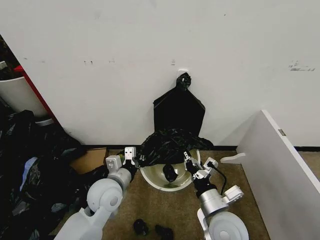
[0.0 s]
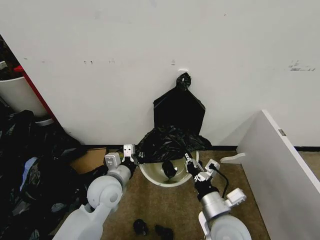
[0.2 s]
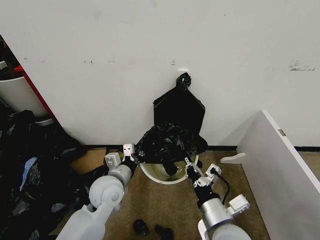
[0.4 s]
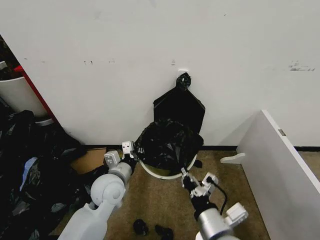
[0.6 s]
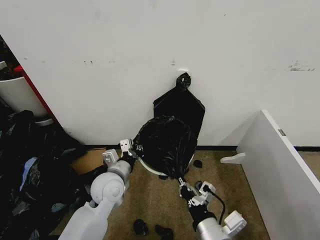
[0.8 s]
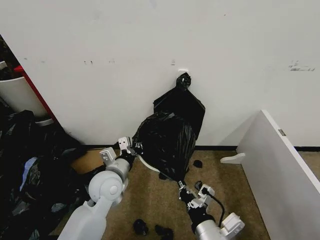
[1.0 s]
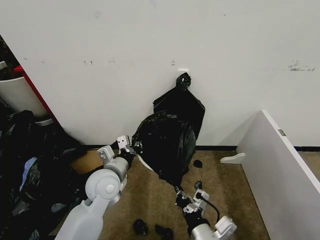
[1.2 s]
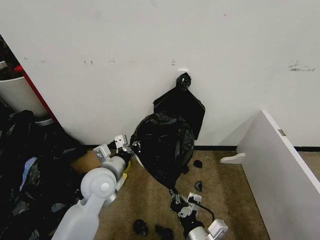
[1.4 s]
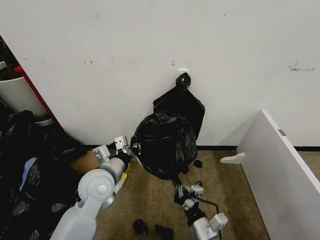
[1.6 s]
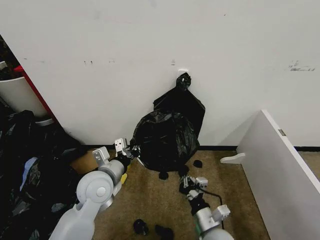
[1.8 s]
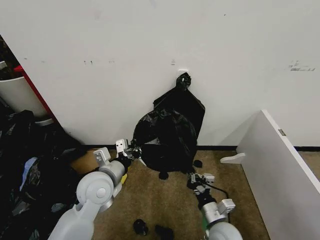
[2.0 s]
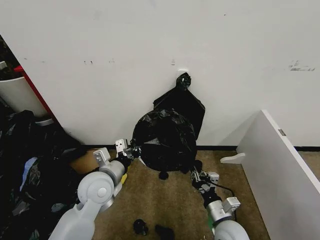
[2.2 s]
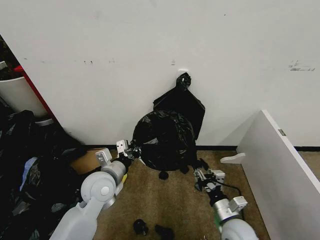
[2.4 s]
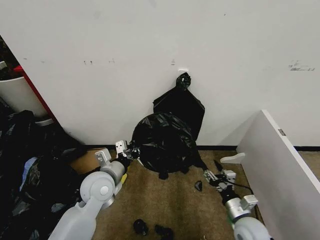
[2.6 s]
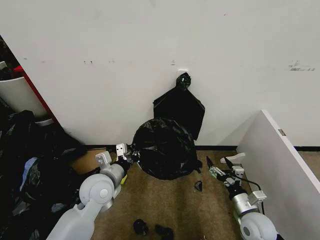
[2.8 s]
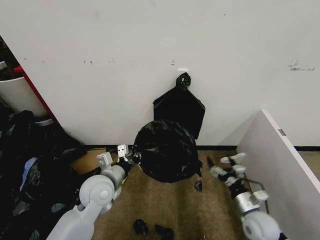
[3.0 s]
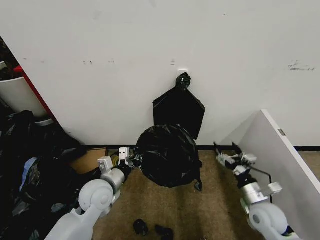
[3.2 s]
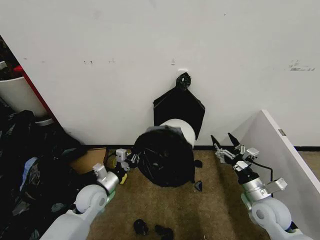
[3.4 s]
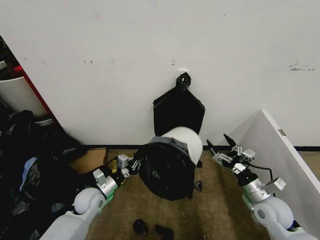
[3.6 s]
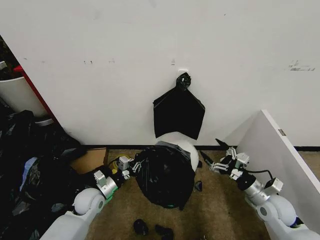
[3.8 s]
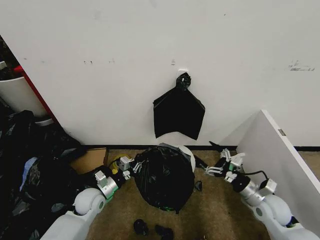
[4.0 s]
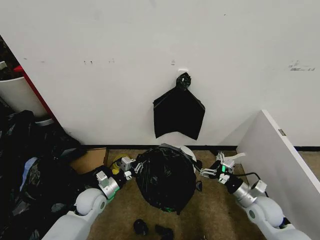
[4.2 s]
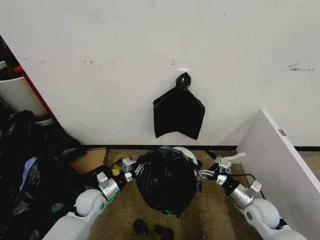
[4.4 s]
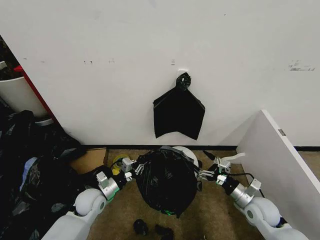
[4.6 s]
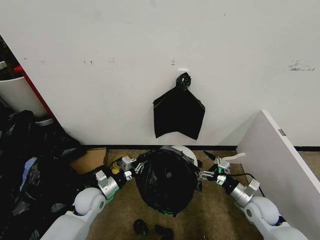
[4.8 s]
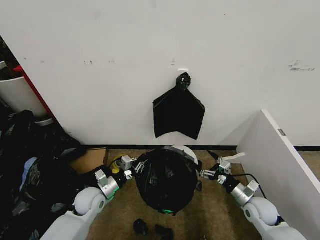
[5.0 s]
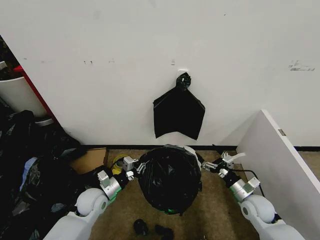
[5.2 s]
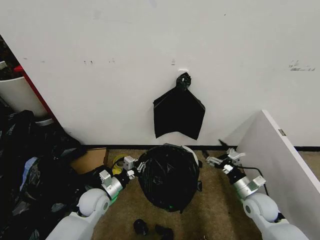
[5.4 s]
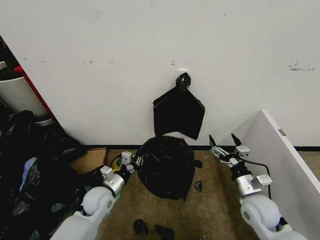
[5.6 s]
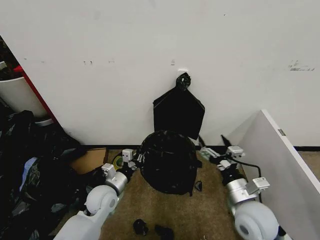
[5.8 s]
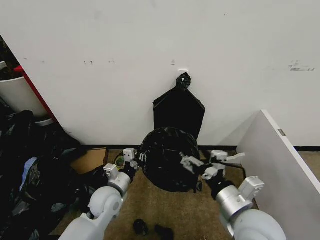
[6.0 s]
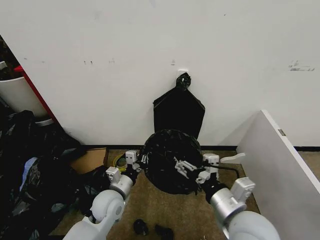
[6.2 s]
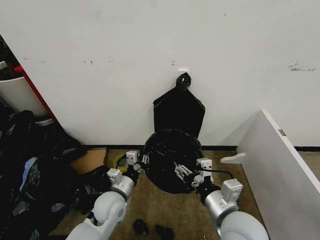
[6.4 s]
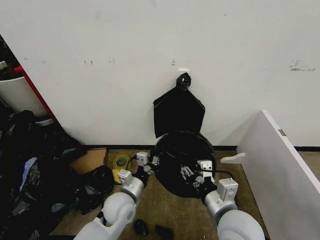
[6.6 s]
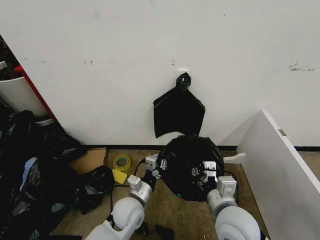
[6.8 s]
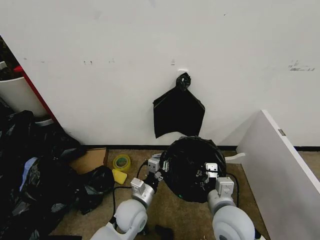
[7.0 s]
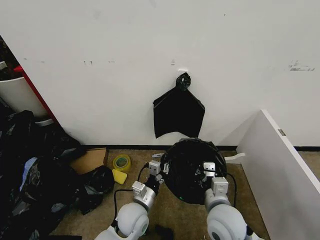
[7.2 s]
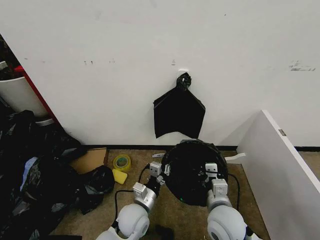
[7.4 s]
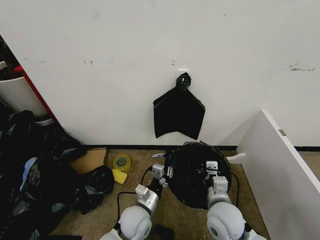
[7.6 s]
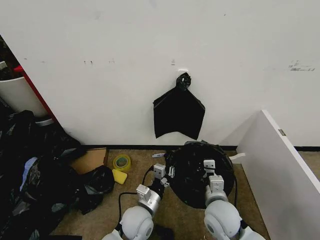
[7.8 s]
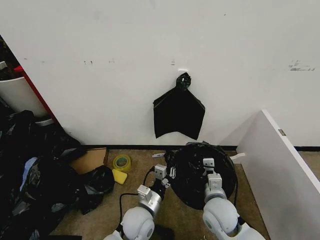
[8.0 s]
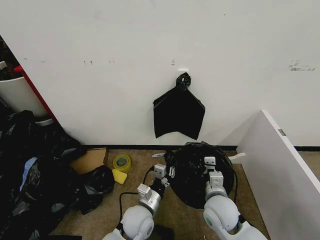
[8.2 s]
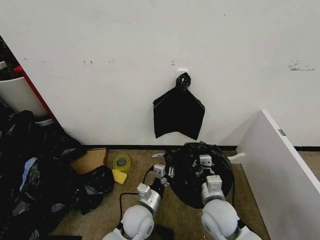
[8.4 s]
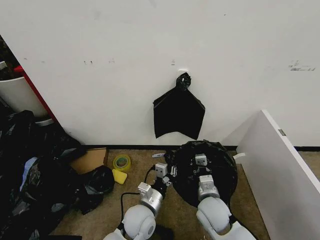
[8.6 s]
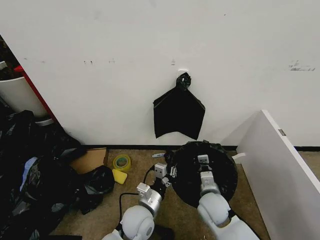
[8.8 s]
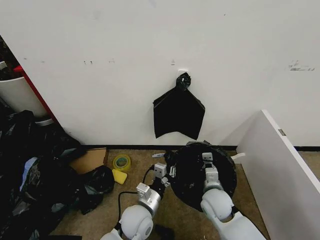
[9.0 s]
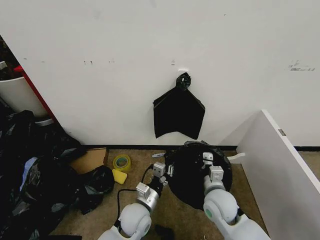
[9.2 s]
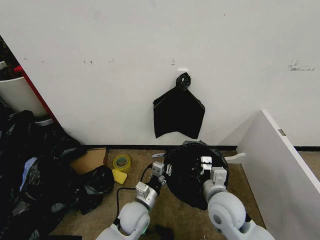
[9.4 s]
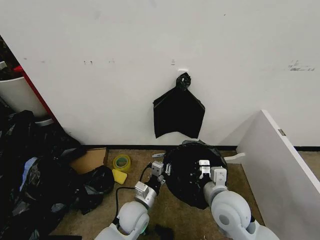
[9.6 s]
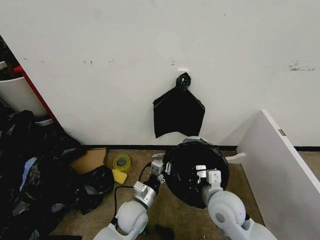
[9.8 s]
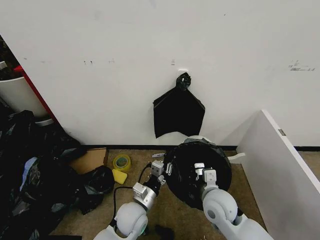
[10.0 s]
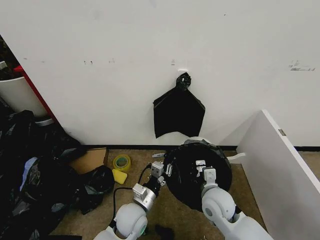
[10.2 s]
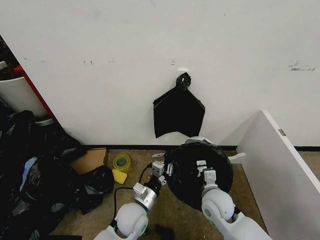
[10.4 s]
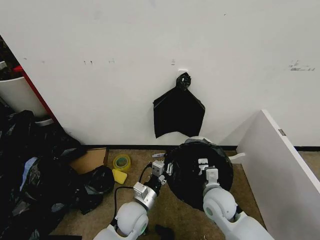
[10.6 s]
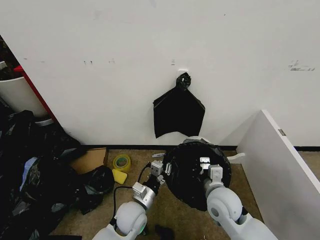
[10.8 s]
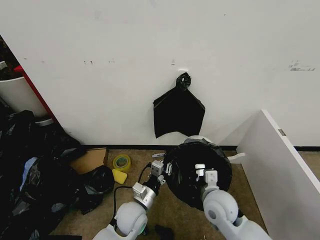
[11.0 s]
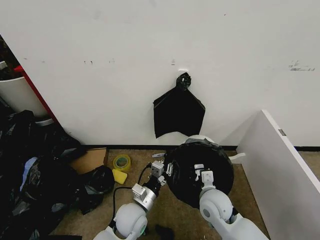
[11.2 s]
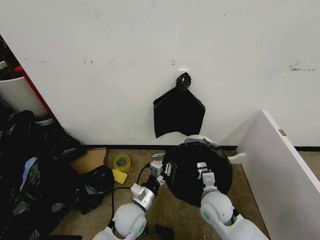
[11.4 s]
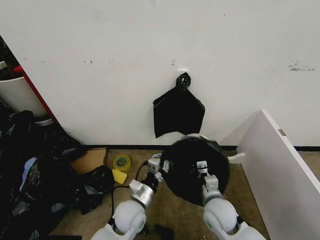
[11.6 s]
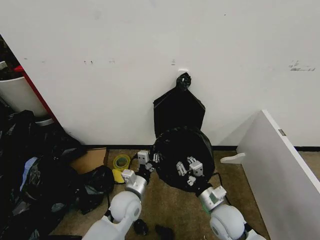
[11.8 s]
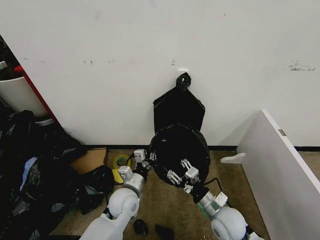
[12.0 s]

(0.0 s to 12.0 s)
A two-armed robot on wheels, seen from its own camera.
Task of the whole recording: Place the garbage bag over the trash bin.
0.0 s - 1.6 s: The right gripper is displaced downward and backward by some 10 cm.
1.6 s - 3.0 s: The right gripper heads to the right and forward, covering some 20 cm, and opens up.
3.0 s - 4.4 s: The left gripper moves downward and to the left, approximately 15 cm.
4.4 s - 6.0 s: The right gripper moves upward, to the left and backward, about 25 cm; the left gripper is displaced to the right and upward by about 10 cm.
6.0 s - 7.6 s: The left gripper moves to the right, roughly 10 cm; the right gripper travels downward by roughly 10 cm, and closes.
7.6 s - 9.0 s: The right gripper travels forward and downward by roughly 10 cm.
9.0 s - 10.4 s: The right gripper reaches some 10 cm upward, then returns.
10.4 s - 12.0 s: The left gripper changes place by some 5 cm. Meanwhile the right gripper moves roughly 5 cm, and opens up.

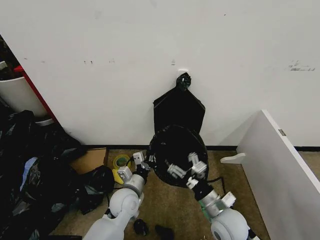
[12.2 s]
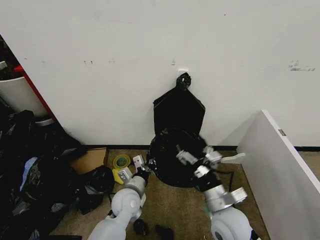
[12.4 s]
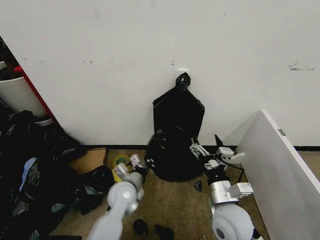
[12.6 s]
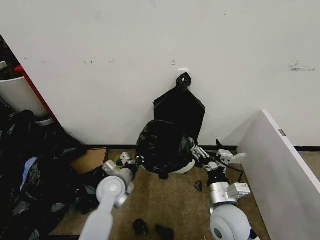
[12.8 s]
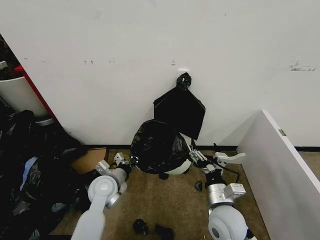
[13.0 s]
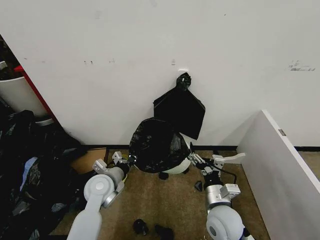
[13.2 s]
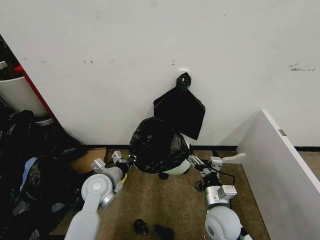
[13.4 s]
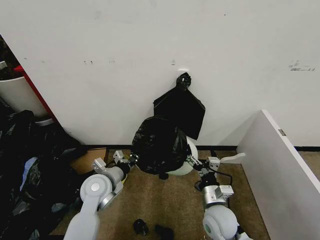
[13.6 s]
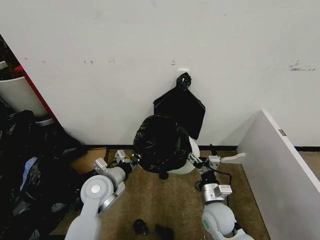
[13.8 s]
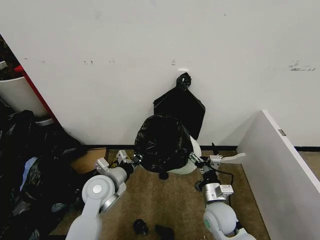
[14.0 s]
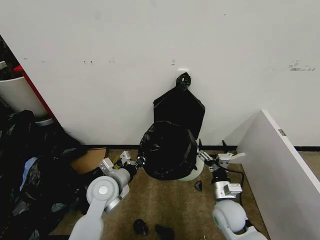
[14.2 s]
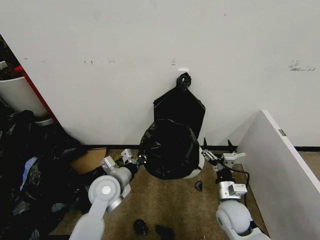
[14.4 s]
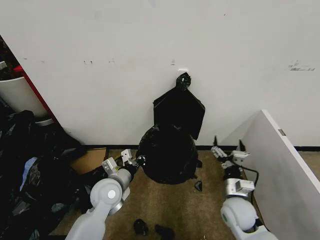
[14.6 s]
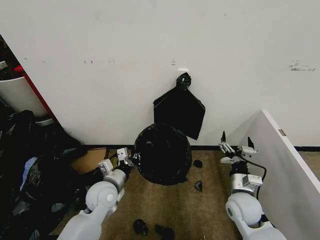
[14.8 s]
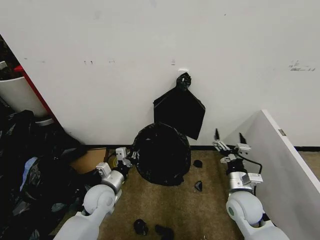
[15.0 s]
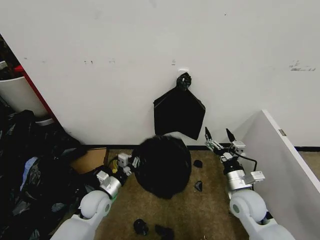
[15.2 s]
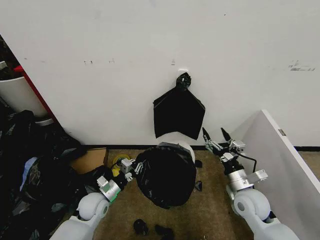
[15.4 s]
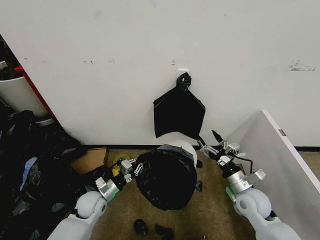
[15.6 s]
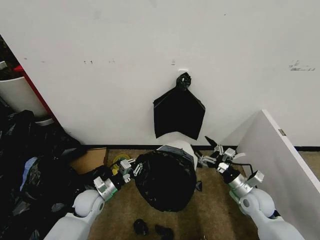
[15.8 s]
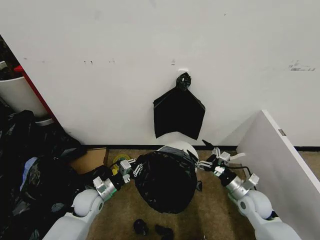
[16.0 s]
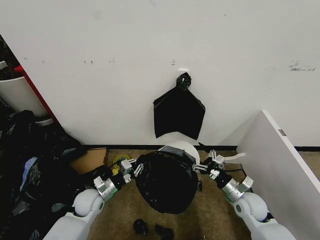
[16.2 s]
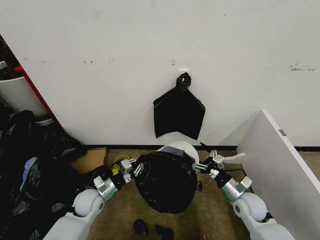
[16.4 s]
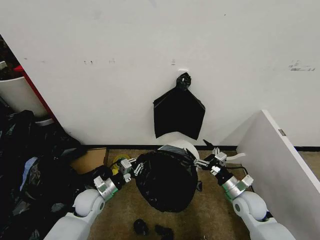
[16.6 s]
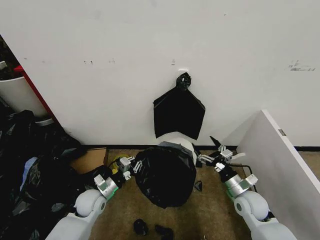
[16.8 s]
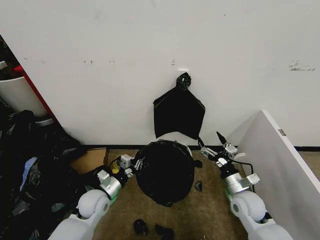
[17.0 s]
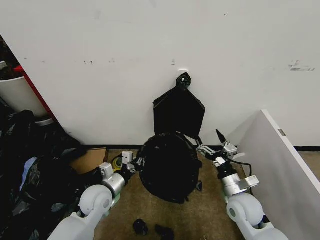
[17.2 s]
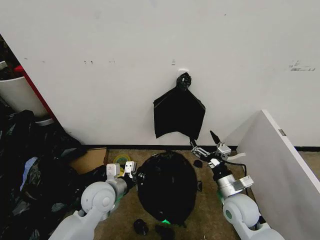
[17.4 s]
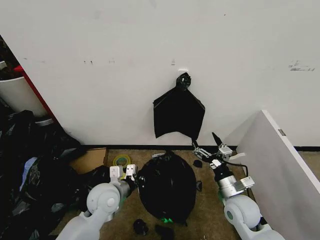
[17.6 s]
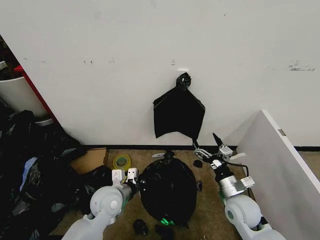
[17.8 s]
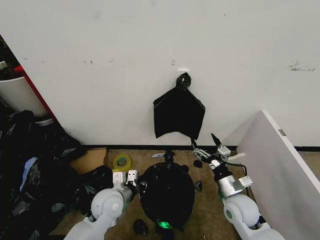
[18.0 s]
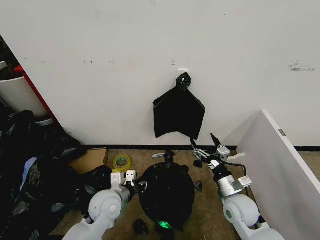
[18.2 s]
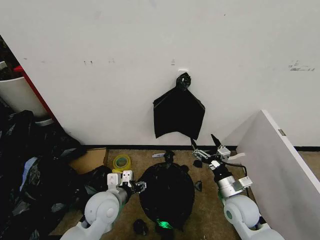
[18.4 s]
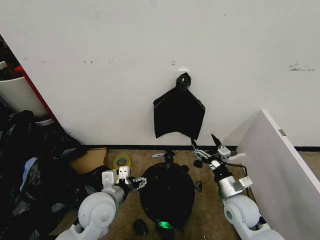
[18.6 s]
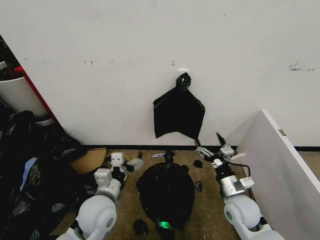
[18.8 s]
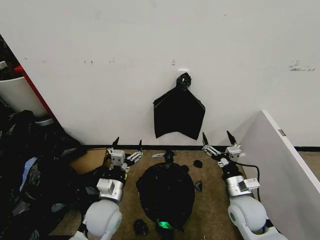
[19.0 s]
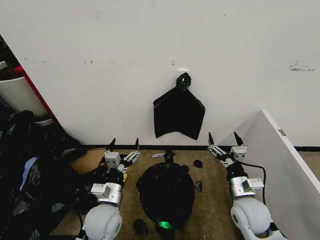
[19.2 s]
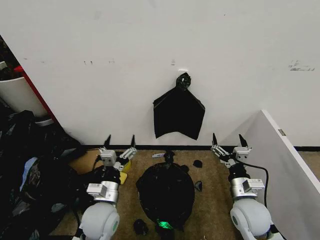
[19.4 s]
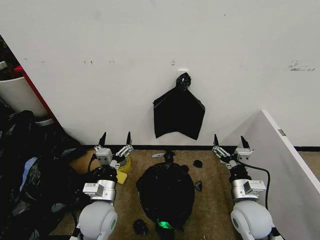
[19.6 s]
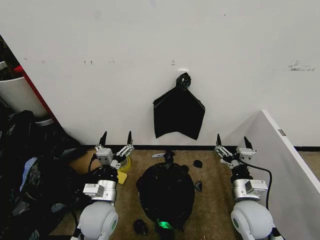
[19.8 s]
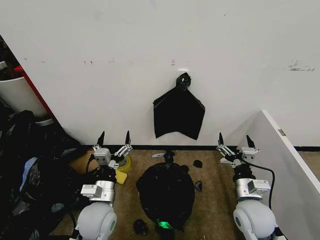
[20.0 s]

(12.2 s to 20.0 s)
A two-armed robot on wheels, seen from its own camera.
Task of the whole recording: Place the garbage bag over the trash bin.
12.2 s - 13.8 s: The left gripper goes approximately 10 cm upward and to the left.
13.8 s - 15.4 s: The left gripper heads downward and to the left, covering approximately 15 cm. The right gripper shifts roughly 10 cm to the right and upward.
15.4 s - 16.8 s: The right gripper moves about 5 cm.
16.8 s - 18.4 s: The left gripper shifts approximately 15 cm upward, to the right and backward, and opens its fingers. The right gripper is displaced to the left by about 5 cm.
18.4 s - 20.0 s: The right gripper moves about 5 cm.
